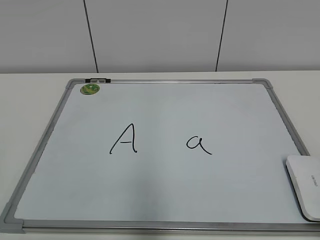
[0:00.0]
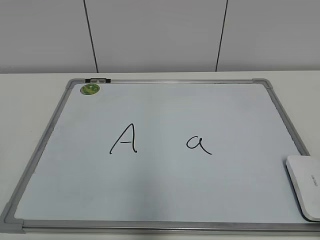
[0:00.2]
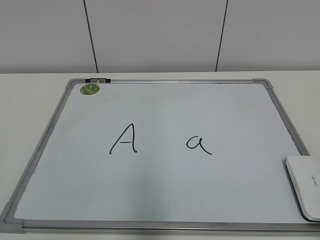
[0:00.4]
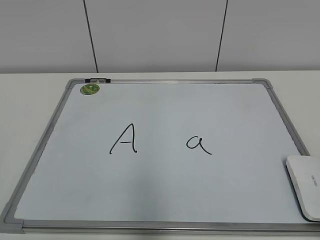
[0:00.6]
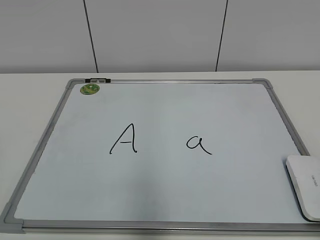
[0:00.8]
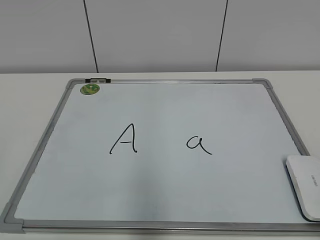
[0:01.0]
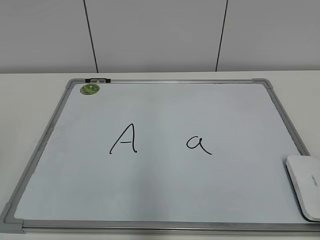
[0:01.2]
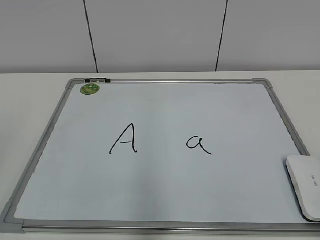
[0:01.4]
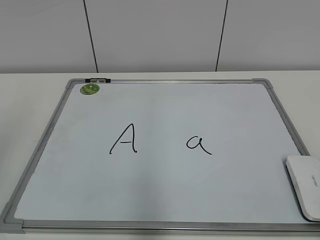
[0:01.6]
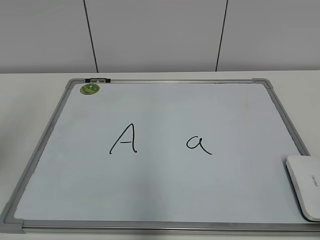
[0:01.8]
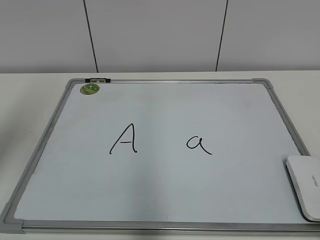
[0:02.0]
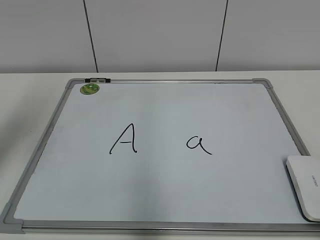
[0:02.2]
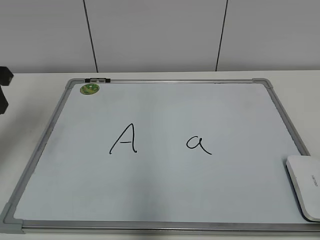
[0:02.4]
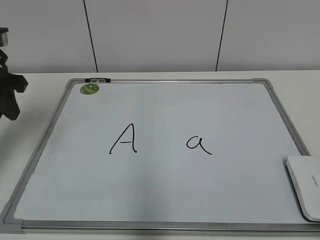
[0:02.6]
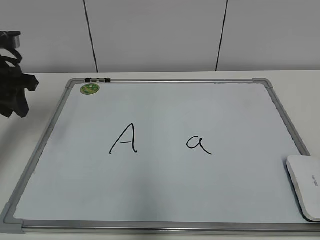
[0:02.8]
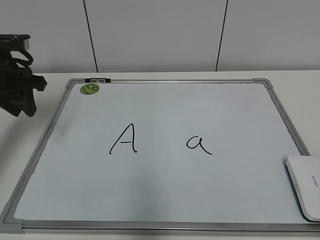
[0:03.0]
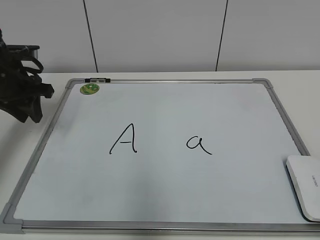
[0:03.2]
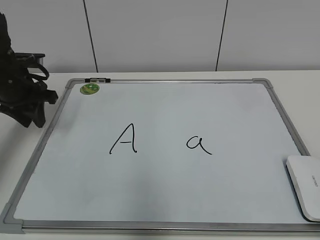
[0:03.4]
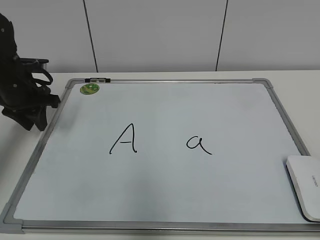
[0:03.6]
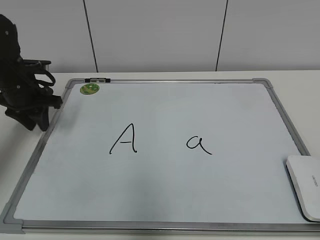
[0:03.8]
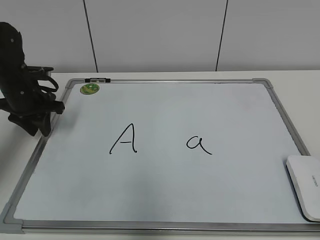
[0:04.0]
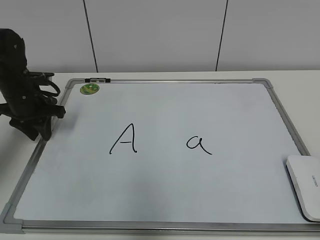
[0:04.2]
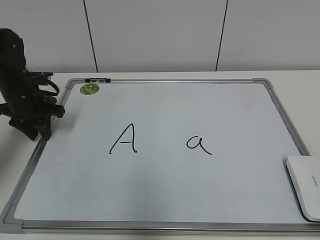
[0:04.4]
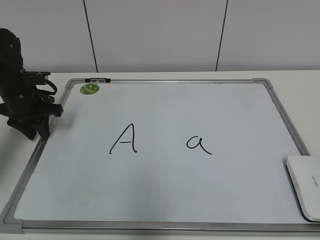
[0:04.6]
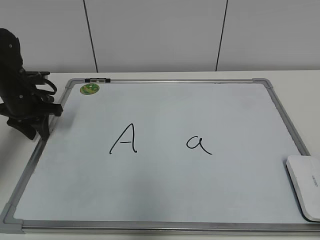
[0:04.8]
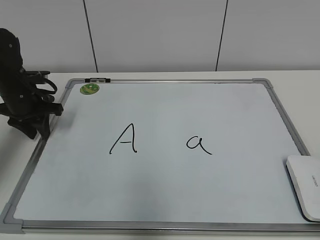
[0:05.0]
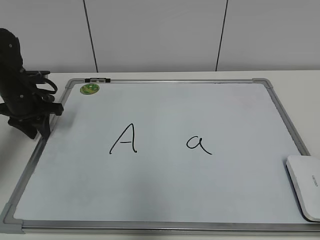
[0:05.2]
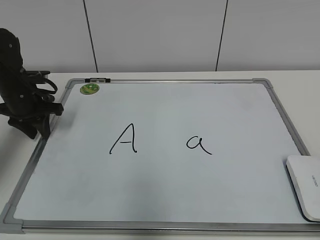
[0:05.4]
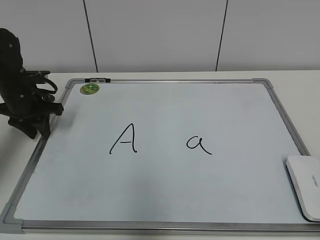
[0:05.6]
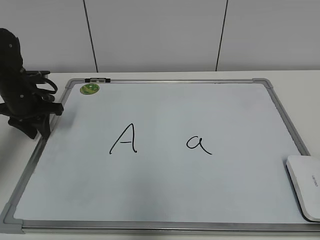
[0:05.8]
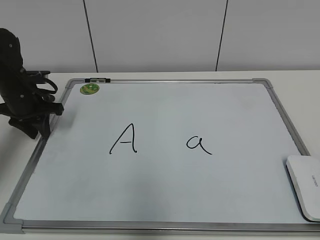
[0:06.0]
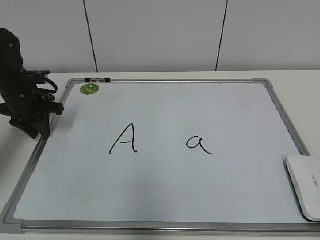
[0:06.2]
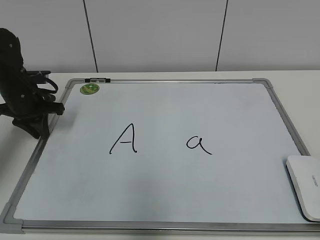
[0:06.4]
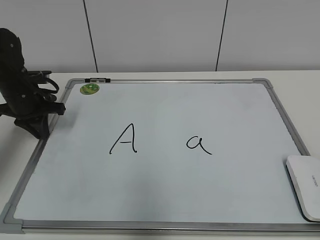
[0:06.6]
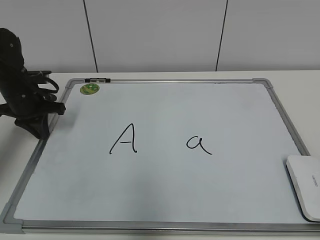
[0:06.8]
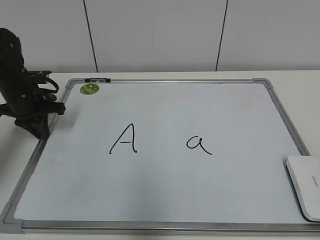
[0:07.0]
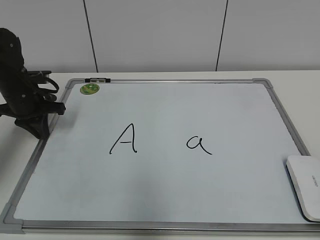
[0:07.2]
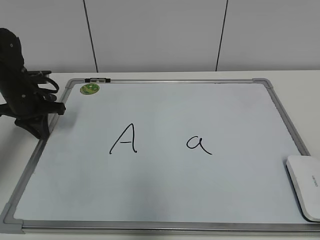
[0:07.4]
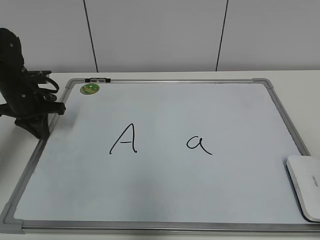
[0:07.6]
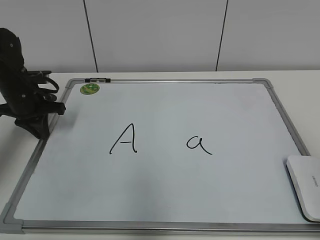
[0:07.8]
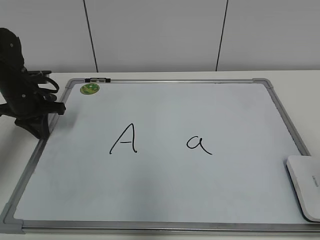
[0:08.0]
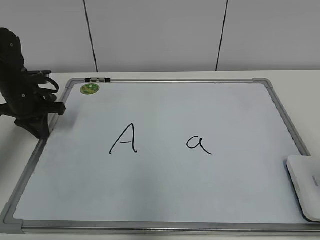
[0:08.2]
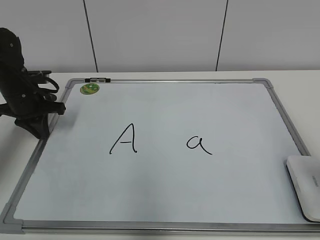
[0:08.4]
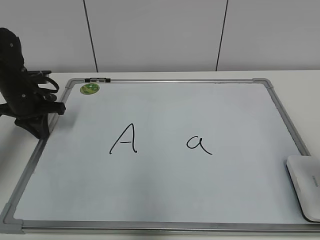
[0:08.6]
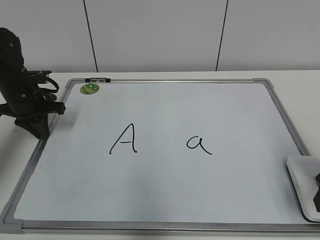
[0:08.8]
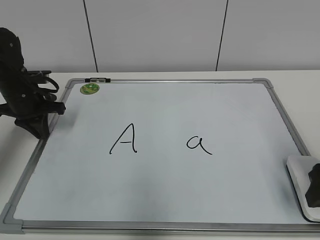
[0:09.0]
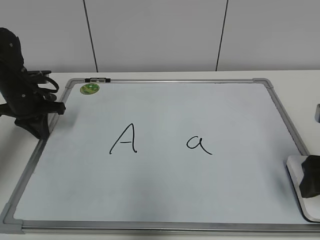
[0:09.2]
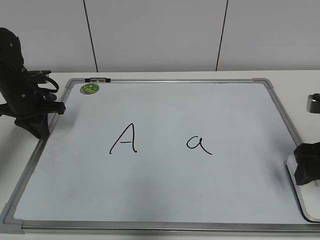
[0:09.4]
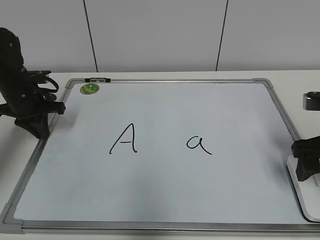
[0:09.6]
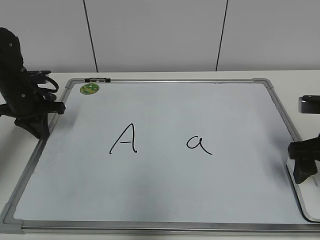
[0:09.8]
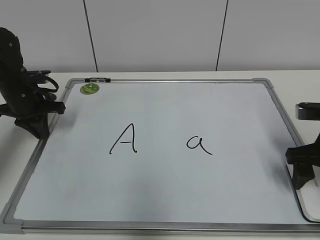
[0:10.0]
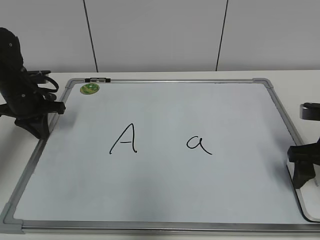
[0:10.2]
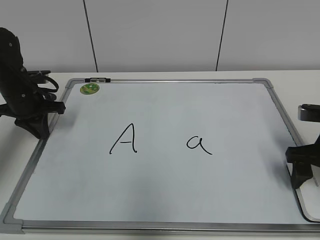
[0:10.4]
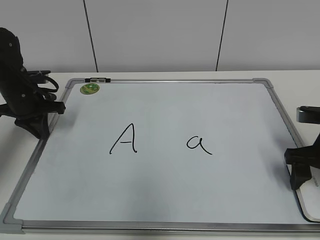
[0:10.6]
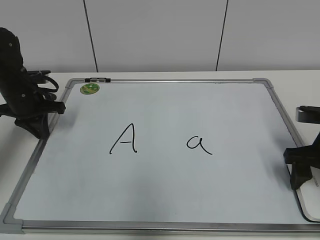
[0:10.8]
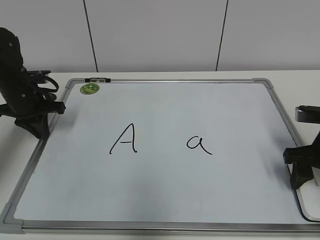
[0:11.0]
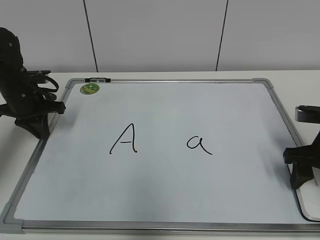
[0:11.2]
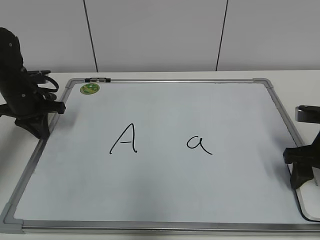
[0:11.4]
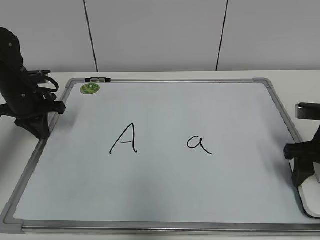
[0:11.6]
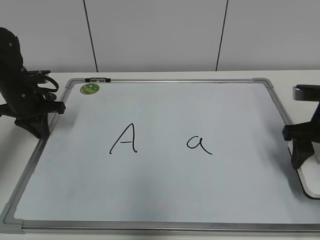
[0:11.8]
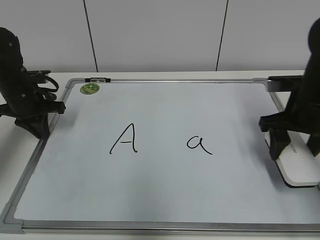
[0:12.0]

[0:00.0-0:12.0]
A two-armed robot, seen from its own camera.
Task of the whole recording: pick up the eraser on the blackboard and erase the letter "a".
Step, 0:00.0 to 0:06.6: Hold the drawing board steady with your left hand.
Step, 0:06.8 to 0:11.2: Grab the eraser with your right hand.
0:01.6 to 0:03.0: The left gripper moves forward, some 25 cm.
0:03.0 to 0:04.4: The left gripper moves downward, roughly 10 cm.
0:04.4 to 0:06.0: Both grippers stay put.
0:06.0 to 0:07.6: The left gripper closes.
0:07.6 to 0:09.0: The right gripper travels forward and downward by some 20 cm, and opens.
0:09.0 to 0:10.4: The right gripper is displaced forward by approximately 5 cm.
0:10.4 to 0:12.0: The right gripper moves approximately 5 cm, and closes up.

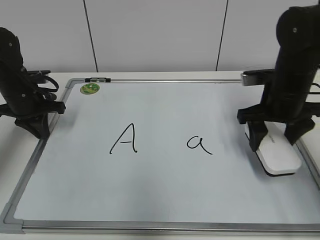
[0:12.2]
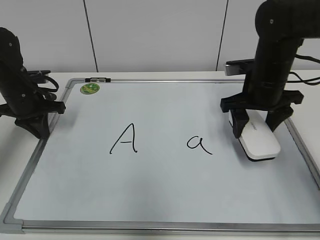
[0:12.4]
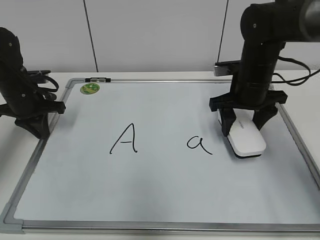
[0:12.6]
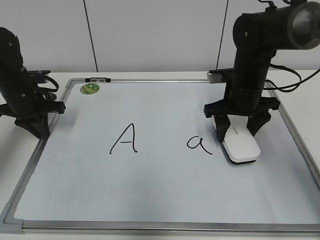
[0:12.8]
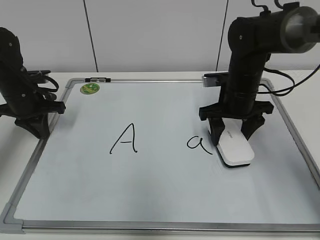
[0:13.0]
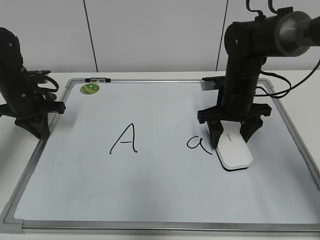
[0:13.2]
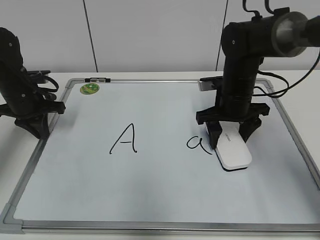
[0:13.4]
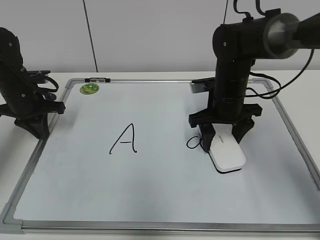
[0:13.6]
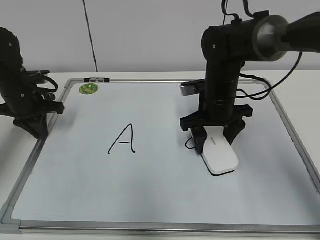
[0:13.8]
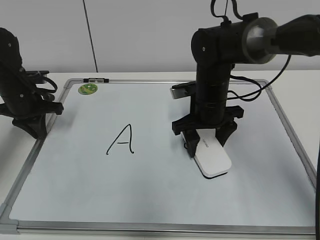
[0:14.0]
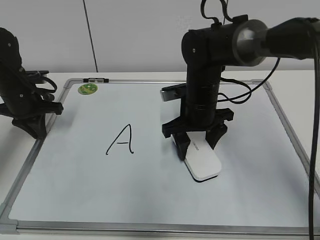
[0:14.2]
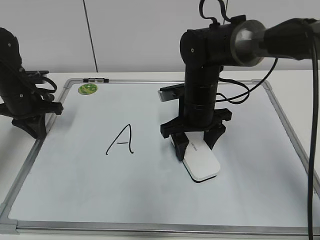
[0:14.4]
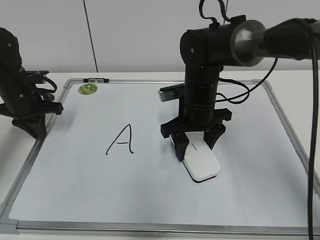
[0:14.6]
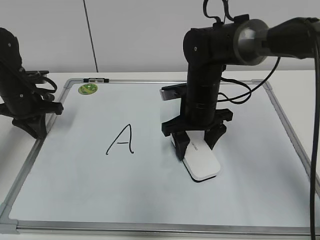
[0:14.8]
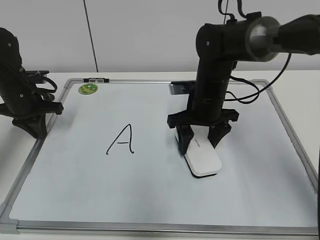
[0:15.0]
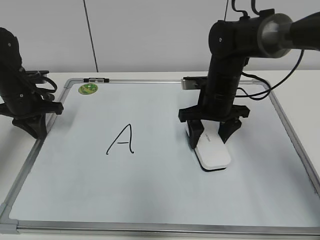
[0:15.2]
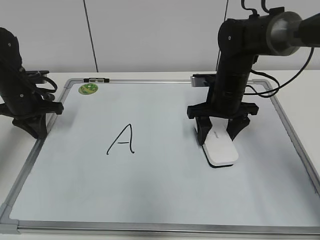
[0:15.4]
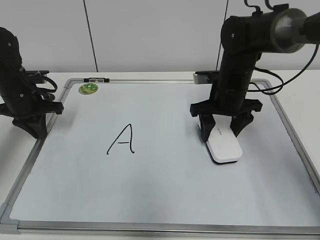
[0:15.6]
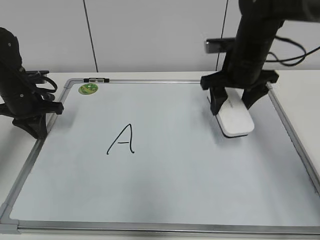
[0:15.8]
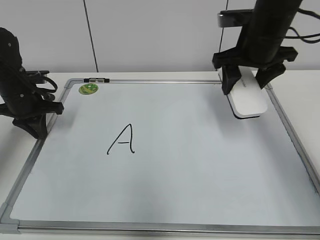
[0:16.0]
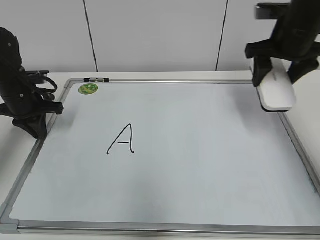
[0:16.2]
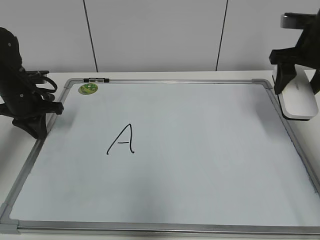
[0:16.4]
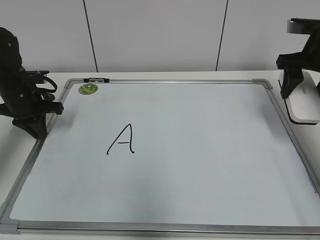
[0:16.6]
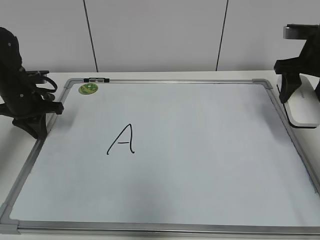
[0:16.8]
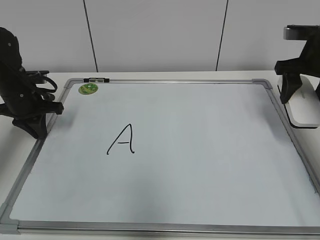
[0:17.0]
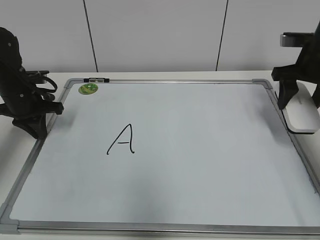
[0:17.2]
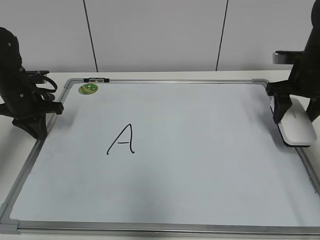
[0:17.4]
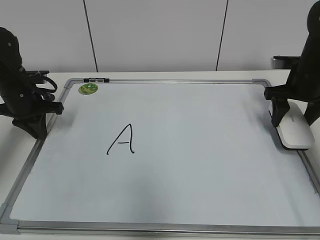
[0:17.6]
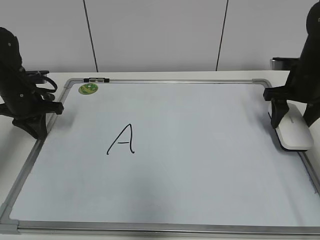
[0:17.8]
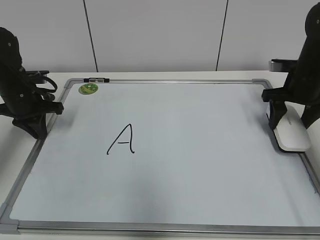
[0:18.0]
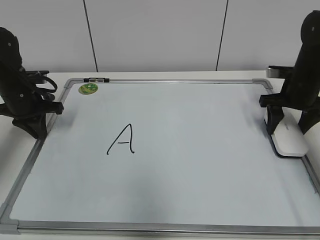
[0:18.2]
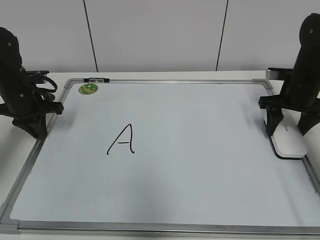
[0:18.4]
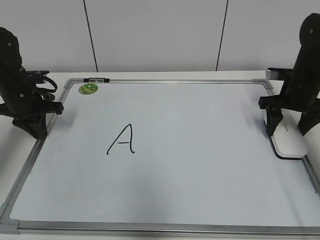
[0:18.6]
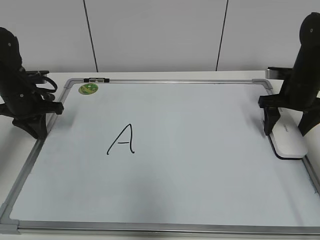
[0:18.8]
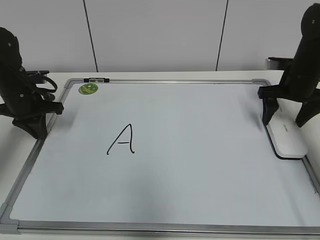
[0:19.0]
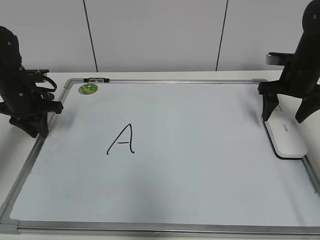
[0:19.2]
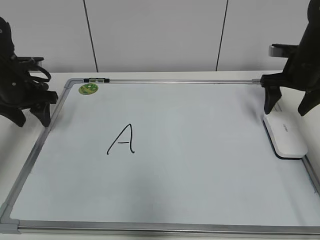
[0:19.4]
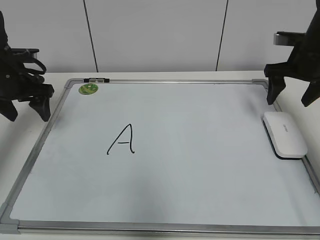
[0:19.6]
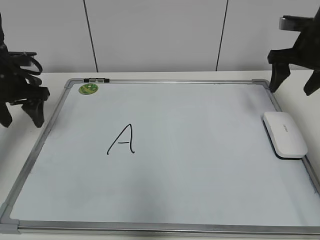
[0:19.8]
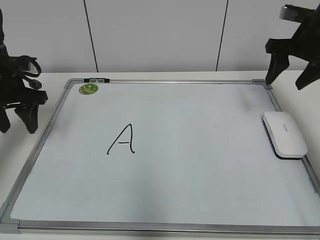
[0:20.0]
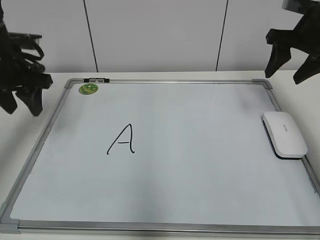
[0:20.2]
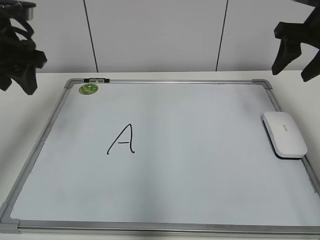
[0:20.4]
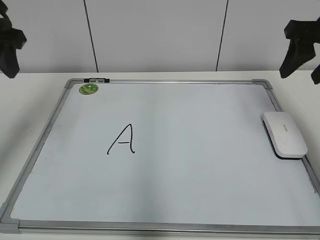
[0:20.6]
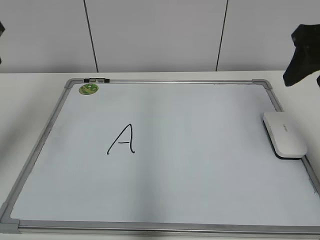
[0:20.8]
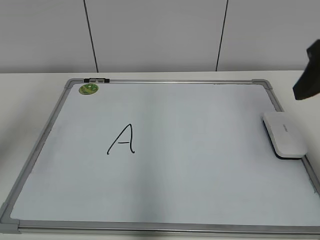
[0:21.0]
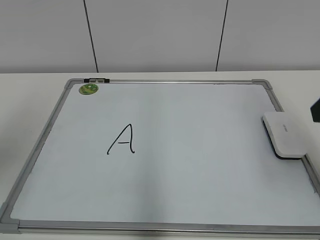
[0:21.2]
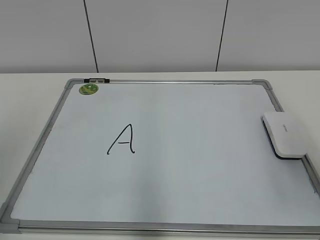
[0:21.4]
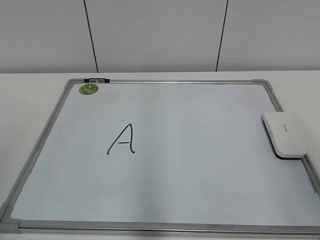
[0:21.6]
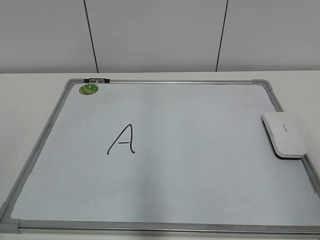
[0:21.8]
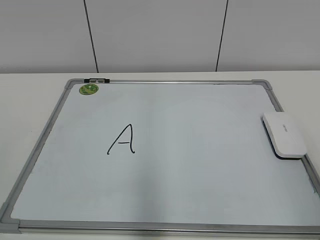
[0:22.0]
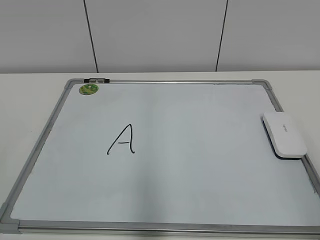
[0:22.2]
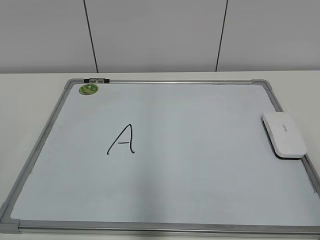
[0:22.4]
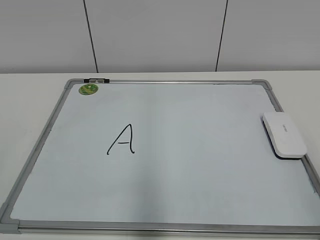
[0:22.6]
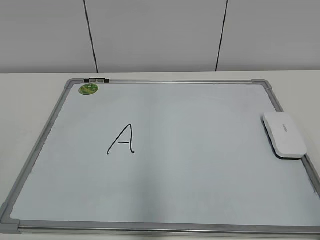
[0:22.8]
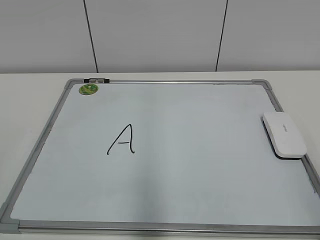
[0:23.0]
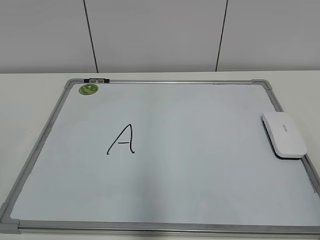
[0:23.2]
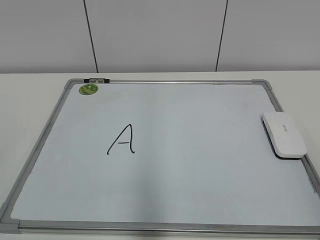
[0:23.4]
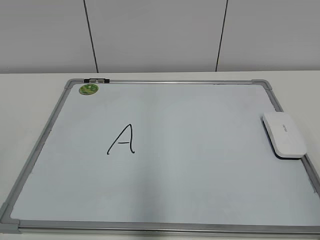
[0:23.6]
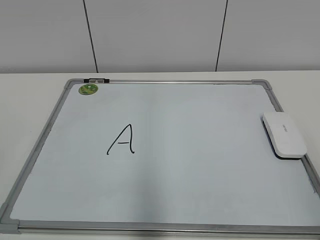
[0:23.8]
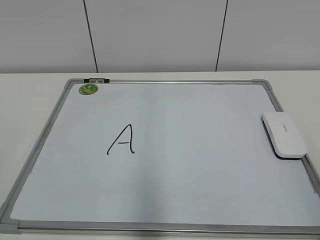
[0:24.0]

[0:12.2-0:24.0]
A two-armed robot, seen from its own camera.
Task of the whole recording: pick up the eraser on the blackboard and erase the letter "a".
Step, 0:12.2 to 0:15.4: Erase the letter a with your right hand.
Step, 0:15.6 to 0:18.8: Put down the eraser with your right hand.
0:12.2 to 0:13.6: The right gripper heads to the left and forward, covering about 10 cm.
0:15.2 to 0:16.6: The right gripper moves to the right and upward, roughly 20 cm.
0:16.6 to 0:18.2: The right gripper is displaced downward by some 10 cm.
0:18.2 to 0:19.6: The left gripper opens; the right gripper ends up approximately 5 cm from where it was, and opens its fingers.
0:19.6 to 0:21.0: The right gripper shifts about 20 cm backward and upward, and closes its fingers, while the left gripper shifts roughly 25 cm upward and backward.
0:21.0 to 0:22.6: Both grippers move backward, roughly 25 cm.
